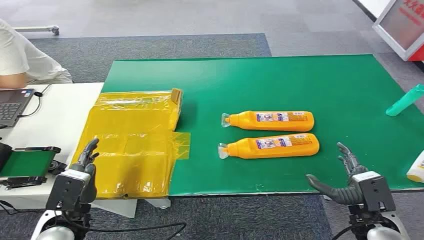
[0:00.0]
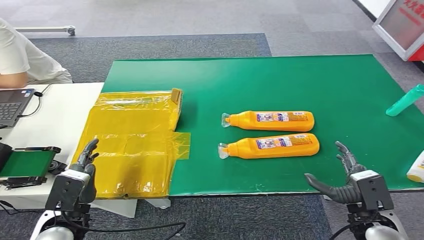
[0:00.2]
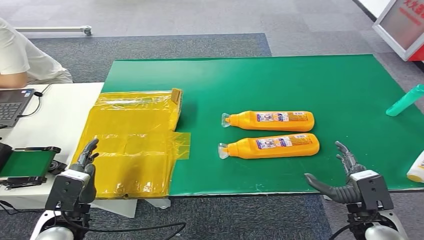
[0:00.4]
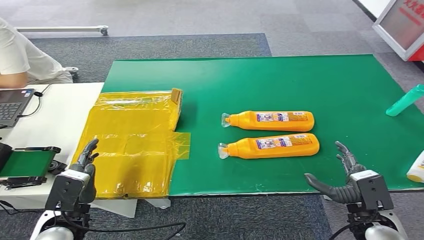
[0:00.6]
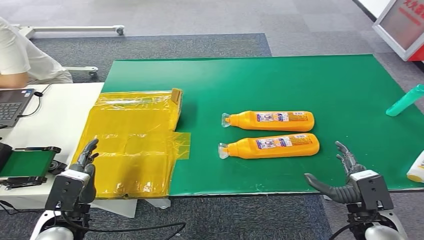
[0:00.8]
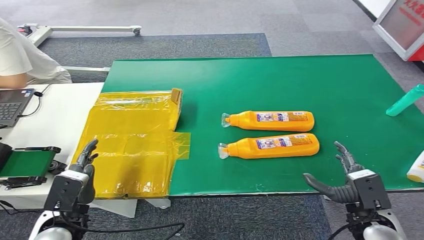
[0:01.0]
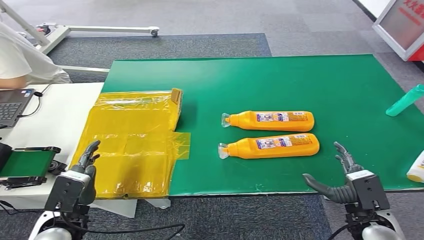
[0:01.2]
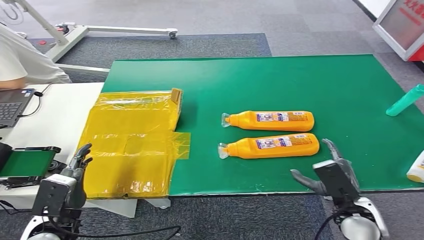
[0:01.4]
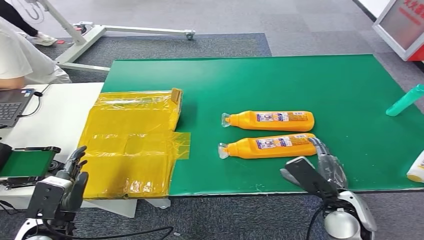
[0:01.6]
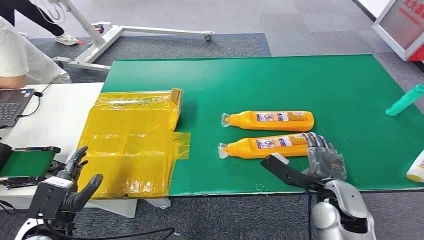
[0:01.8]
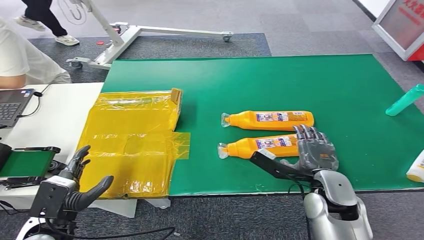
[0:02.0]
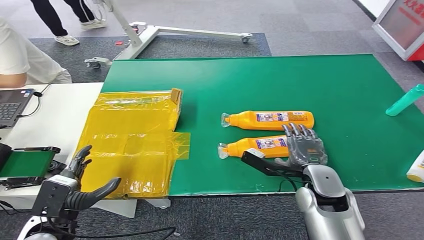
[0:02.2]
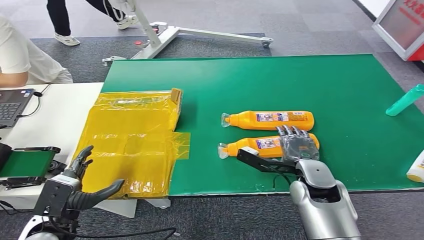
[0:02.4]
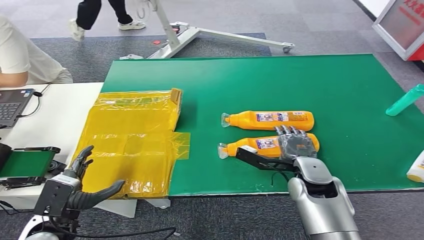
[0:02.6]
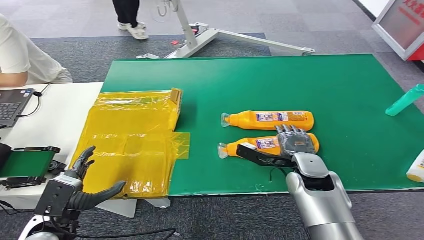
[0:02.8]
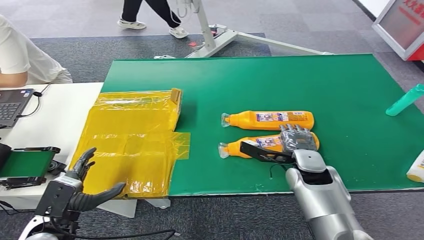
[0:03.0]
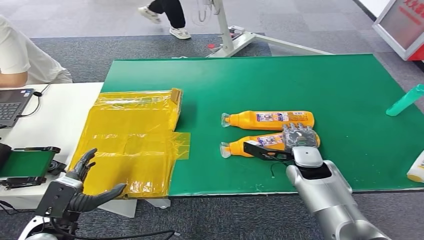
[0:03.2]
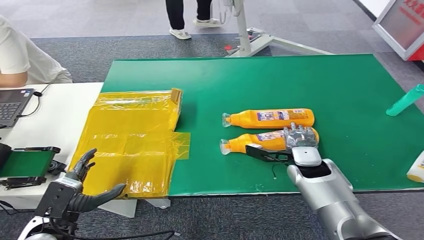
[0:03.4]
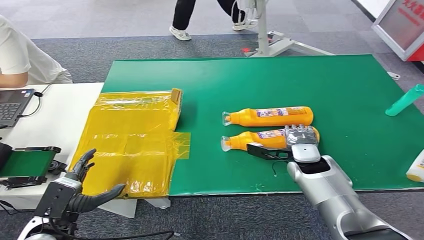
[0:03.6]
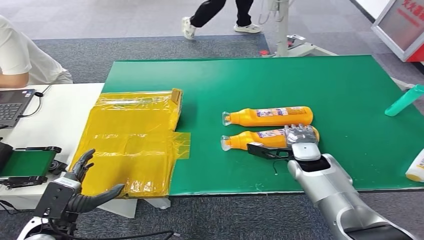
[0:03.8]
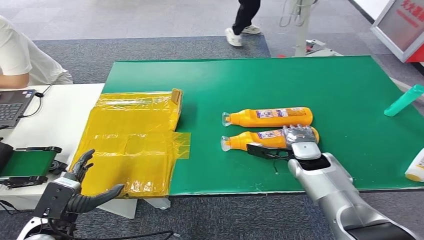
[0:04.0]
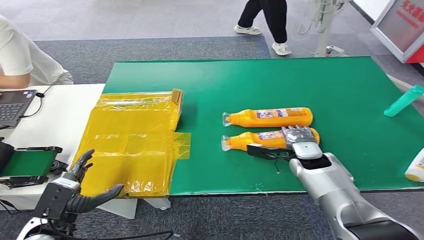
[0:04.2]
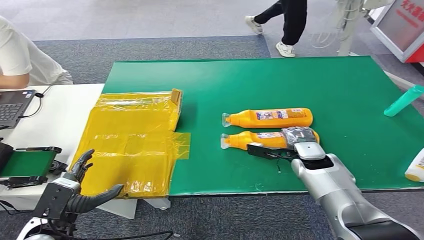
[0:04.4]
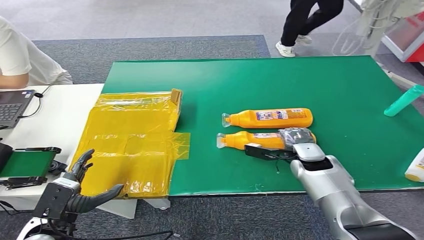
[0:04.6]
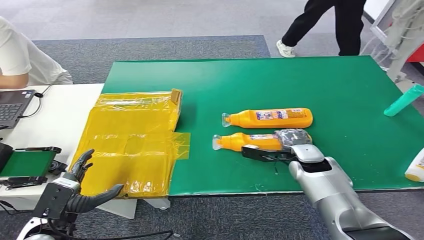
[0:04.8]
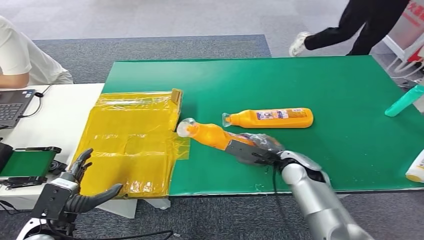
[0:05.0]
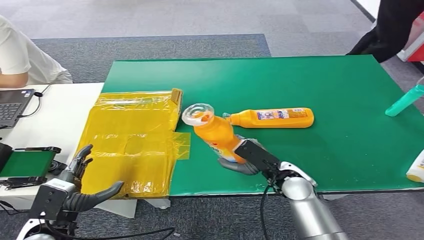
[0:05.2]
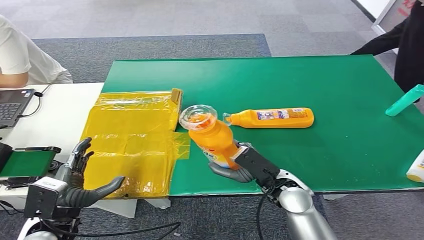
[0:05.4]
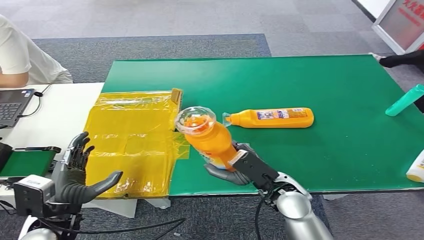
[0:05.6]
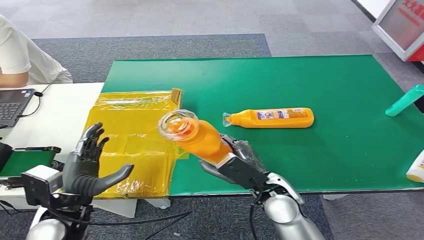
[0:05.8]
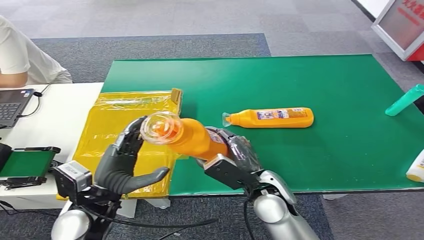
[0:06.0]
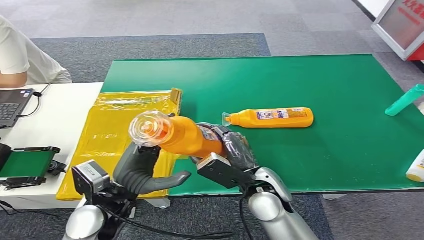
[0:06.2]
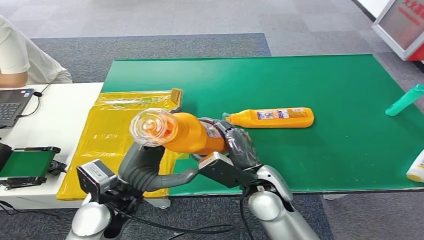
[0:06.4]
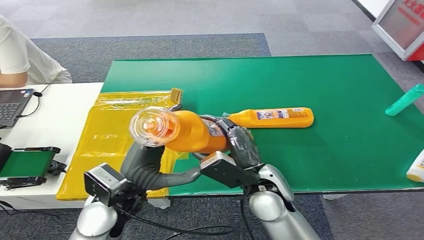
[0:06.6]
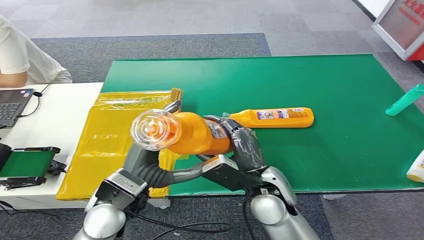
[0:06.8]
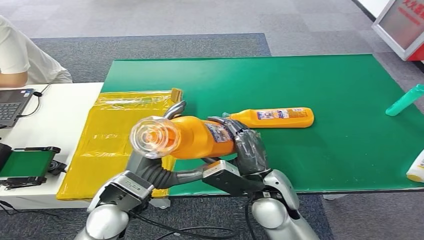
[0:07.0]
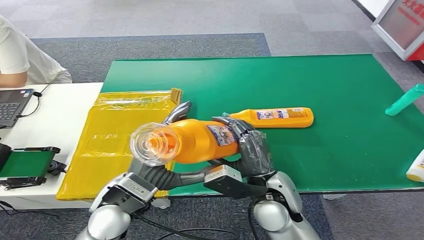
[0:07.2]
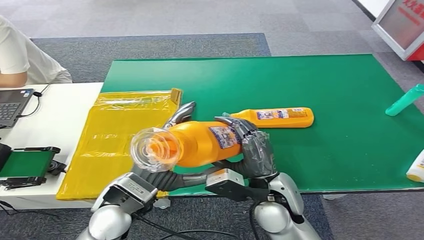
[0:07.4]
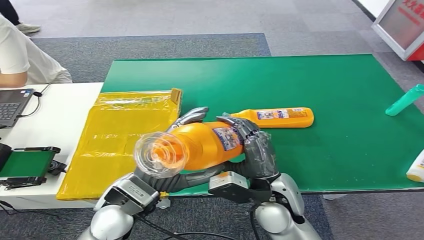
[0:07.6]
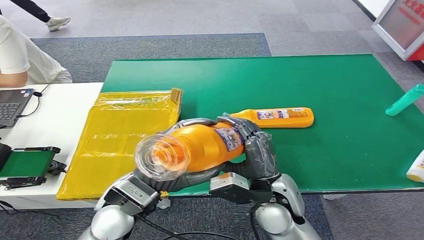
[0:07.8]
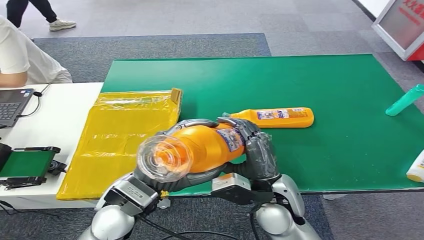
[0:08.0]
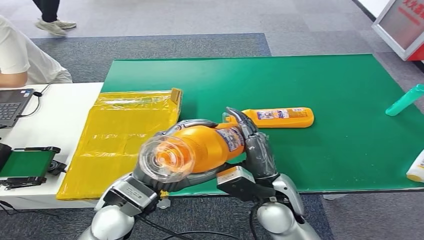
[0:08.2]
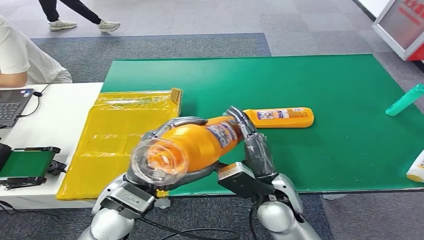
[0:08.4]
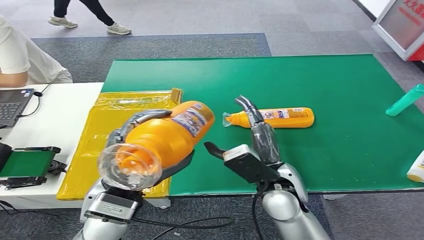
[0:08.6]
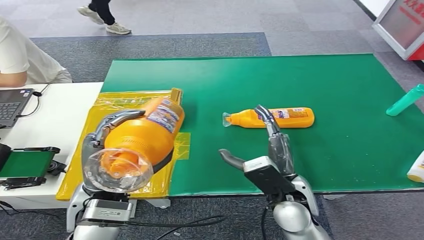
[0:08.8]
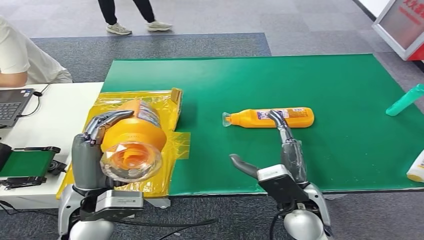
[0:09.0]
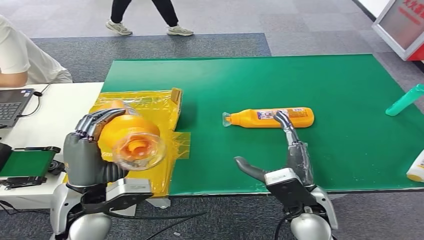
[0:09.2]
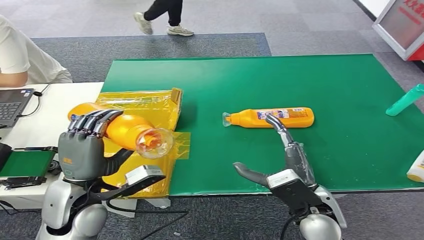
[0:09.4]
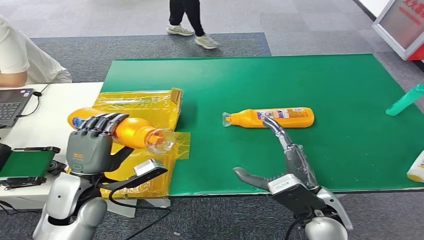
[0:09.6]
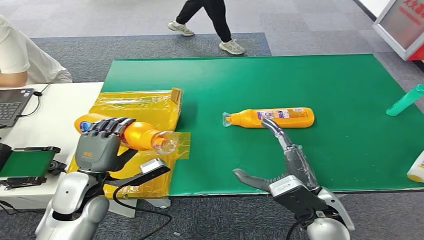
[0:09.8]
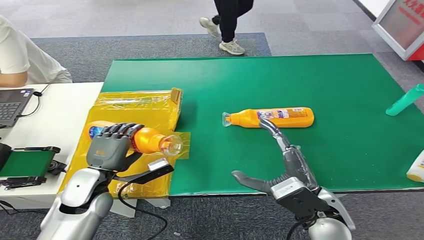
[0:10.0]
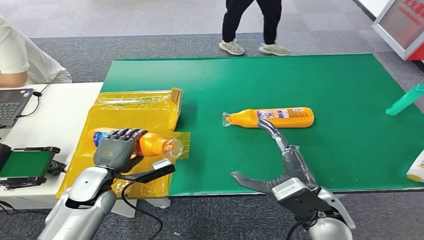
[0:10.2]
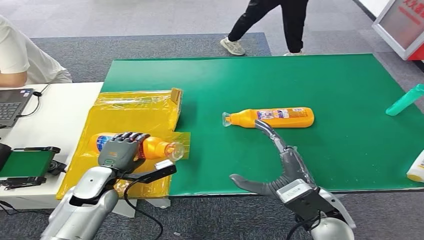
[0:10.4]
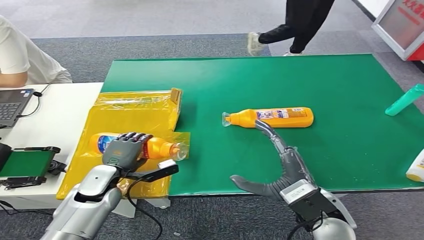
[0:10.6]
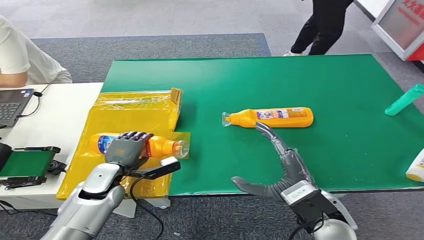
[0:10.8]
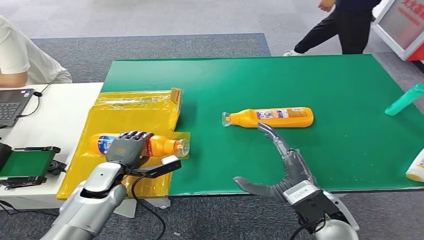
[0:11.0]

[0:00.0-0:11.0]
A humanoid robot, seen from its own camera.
Step, 0:00.0 to 0:05.4: Pick up the bottle from the table.
0:01.6 to 0:03.2: The right hand goes roughly 15 cm forward.
0:03.2 to 0:04.8: The hands move only a little.
0:06.2 to 0:07.8: The left hand shifts by roughly 5 cm.

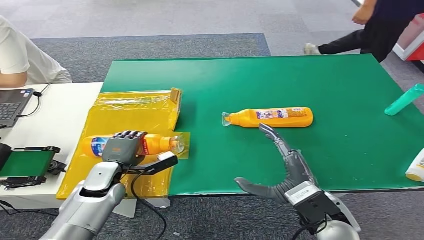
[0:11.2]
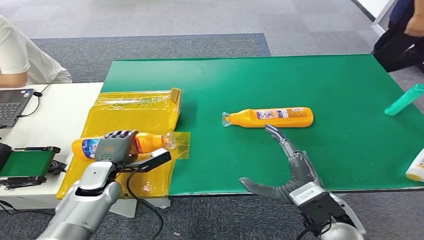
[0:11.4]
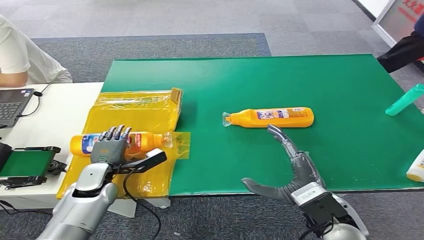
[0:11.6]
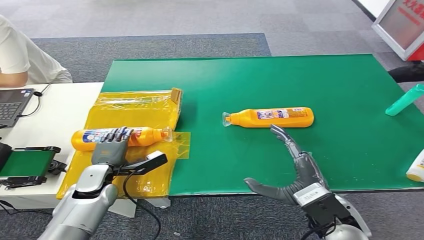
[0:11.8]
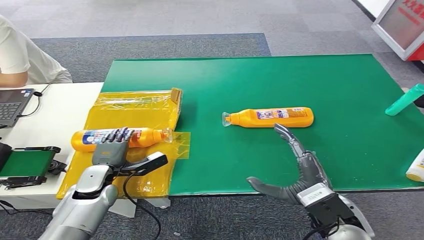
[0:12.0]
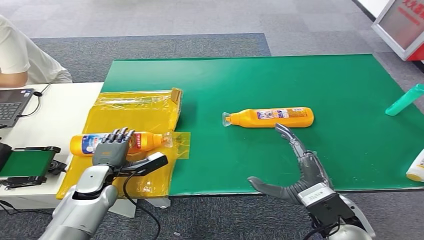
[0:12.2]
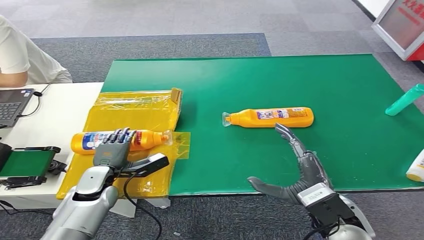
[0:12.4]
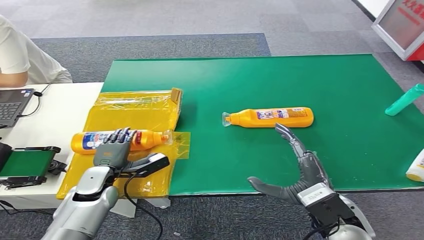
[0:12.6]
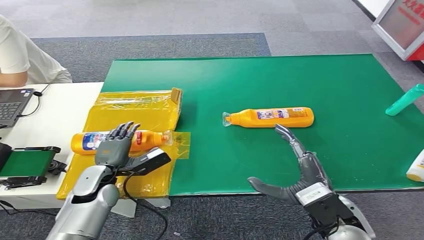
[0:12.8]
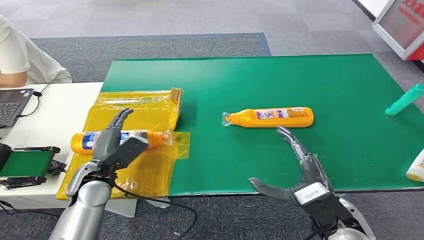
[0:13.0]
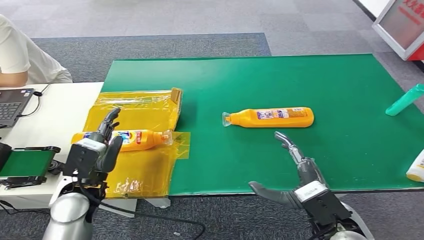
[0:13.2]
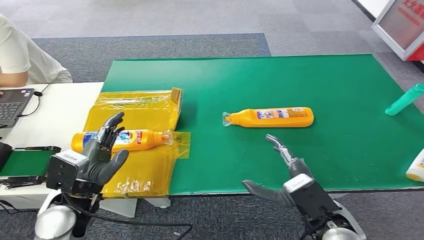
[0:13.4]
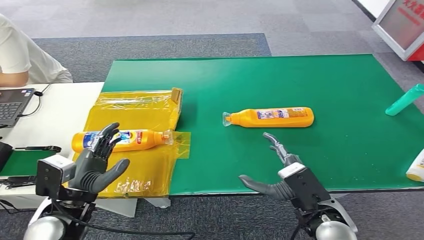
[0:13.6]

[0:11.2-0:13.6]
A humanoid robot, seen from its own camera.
Step, 0:11.2 to 0:13.6: Turn the bottle to the front side.
0:11.2 to 0:12.4: The hands stay close to where they were, moving slightly.
0:12.4 to 0:13.6: The left hand heads upward and backward, covering roughly 15 cm.
